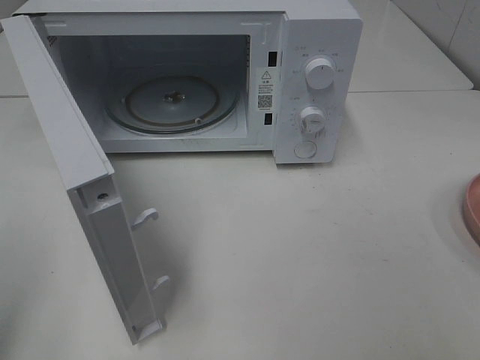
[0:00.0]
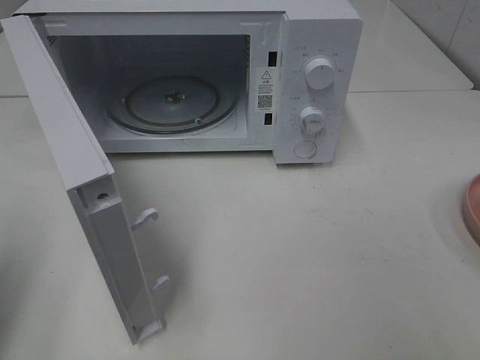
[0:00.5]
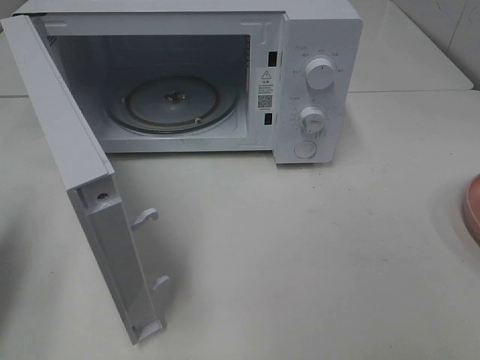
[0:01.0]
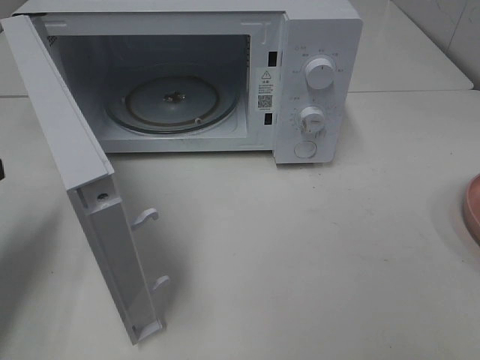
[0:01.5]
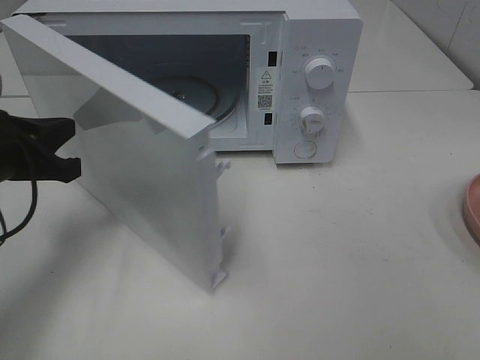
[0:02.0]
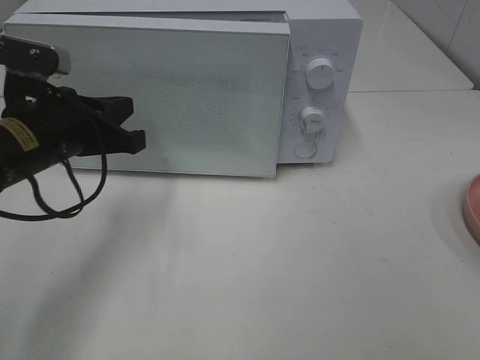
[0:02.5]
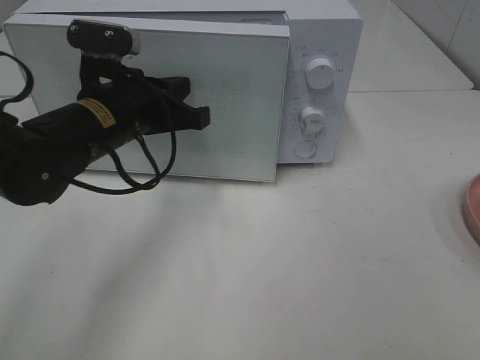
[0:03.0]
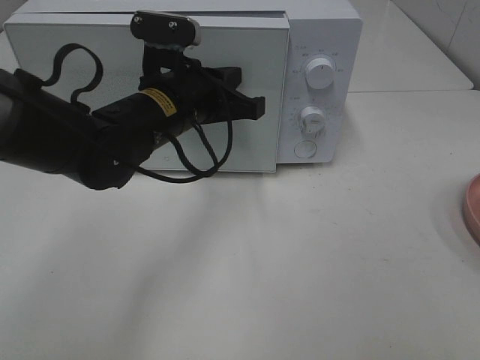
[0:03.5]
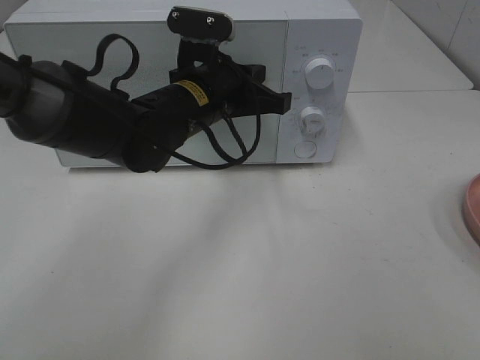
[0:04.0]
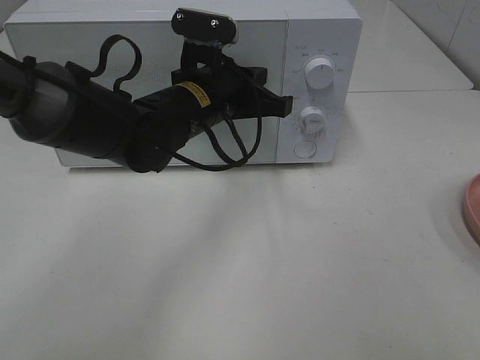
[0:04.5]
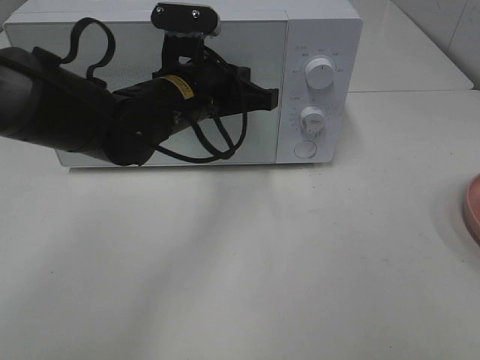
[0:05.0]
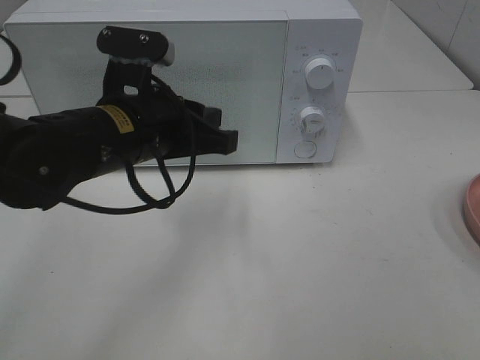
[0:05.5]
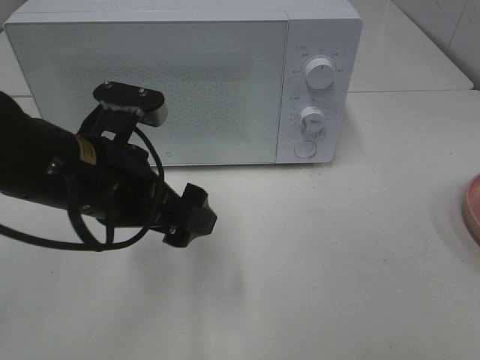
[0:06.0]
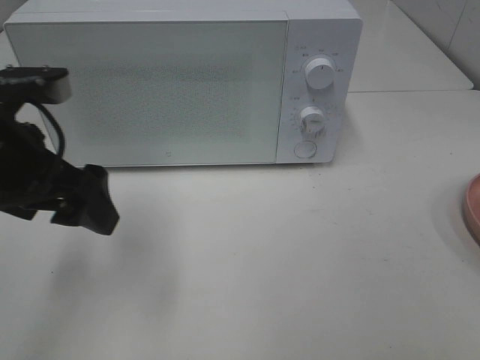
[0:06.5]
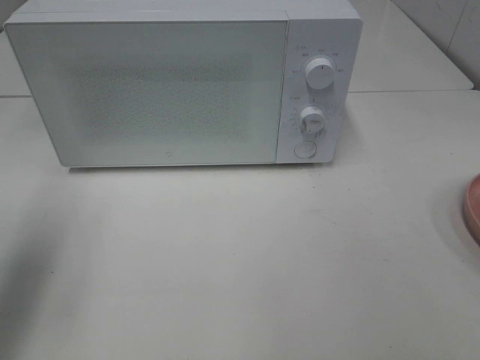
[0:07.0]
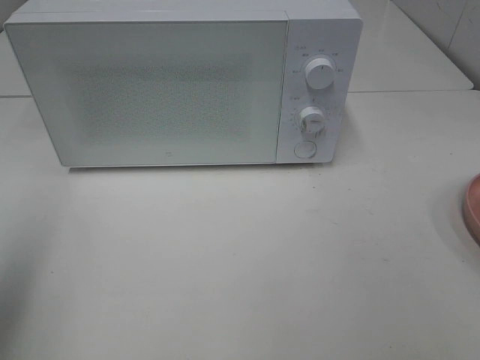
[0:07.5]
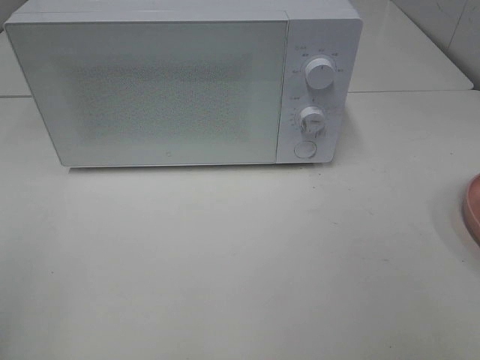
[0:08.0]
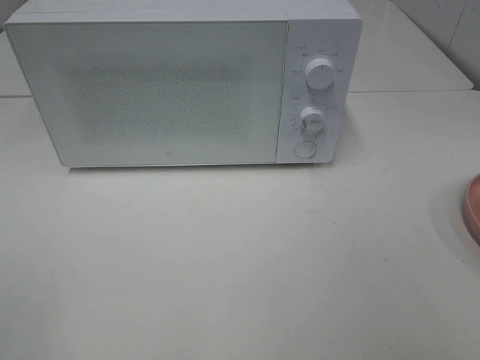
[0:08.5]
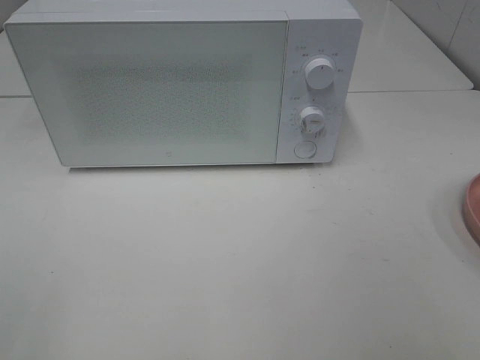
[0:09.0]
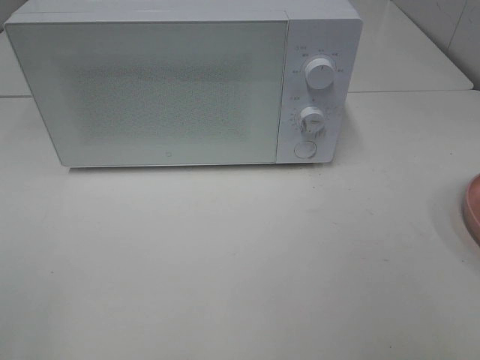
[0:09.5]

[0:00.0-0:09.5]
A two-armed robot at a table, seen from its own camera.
Task of the whole recording: Heat Sandwich.
Step, 0:00.0 to 0:05.0: Left hand: close the microwave door.
0:00.0 to 0:02.0: The left gripper shifts about 25 cm forward, downward and to the right, and closes up.
0:02.0 to 0:04.0: The left gripper goes roughly 20 cm to the right and forward.
0:04.0 to 0:05.5: The left gripper moves backward and to the left, approximately 10 cm, and opens up.
0:05.5 to 0:07.5: The left gripper shifts some 30 cm to the left, upward and backward, and opens its fingers.
0:07.5 to 0:09.5: The left gripper is displaced backward by about 15 cm.
